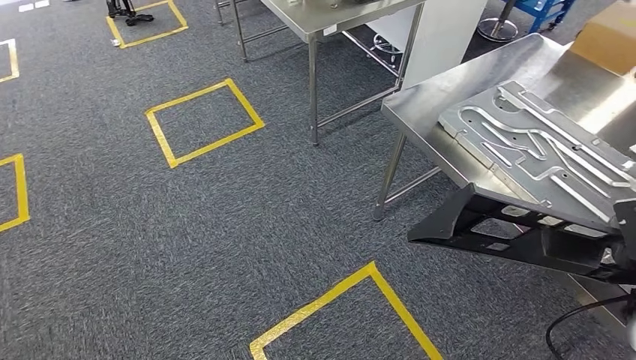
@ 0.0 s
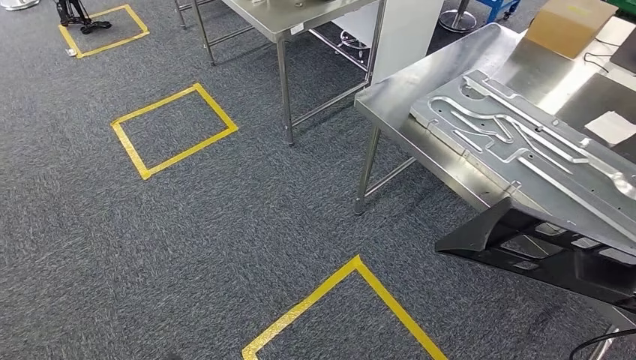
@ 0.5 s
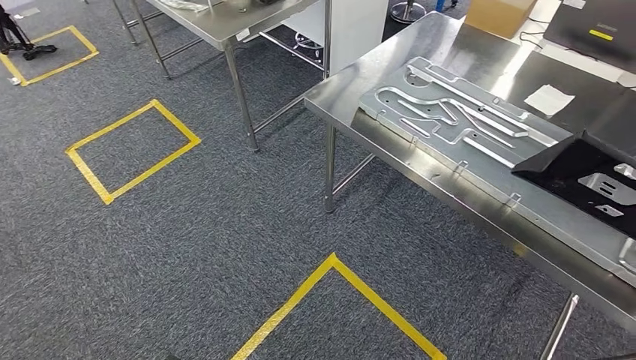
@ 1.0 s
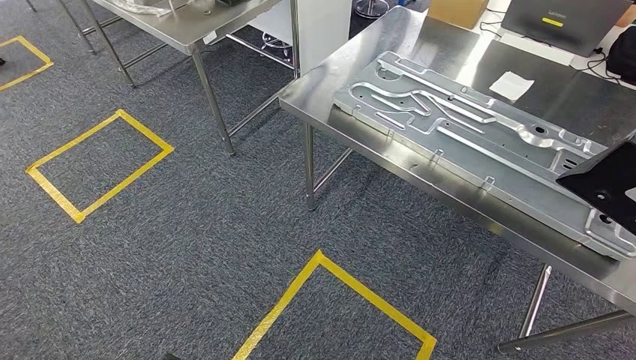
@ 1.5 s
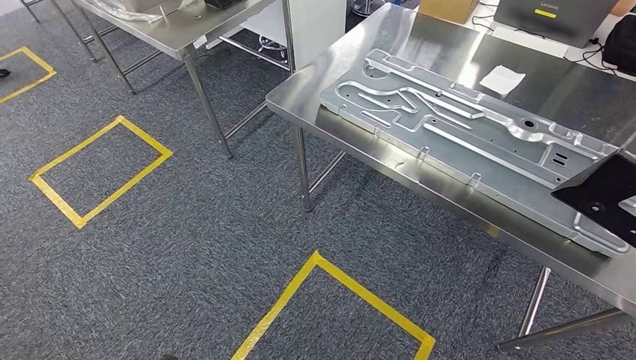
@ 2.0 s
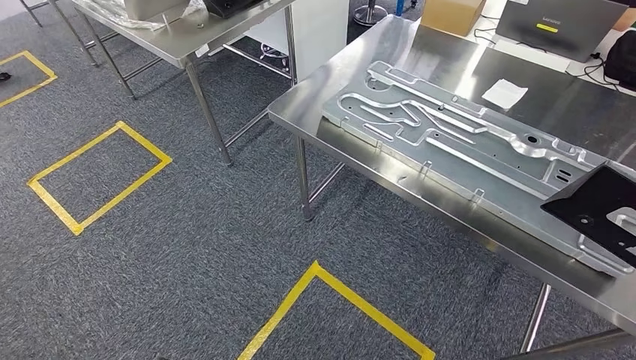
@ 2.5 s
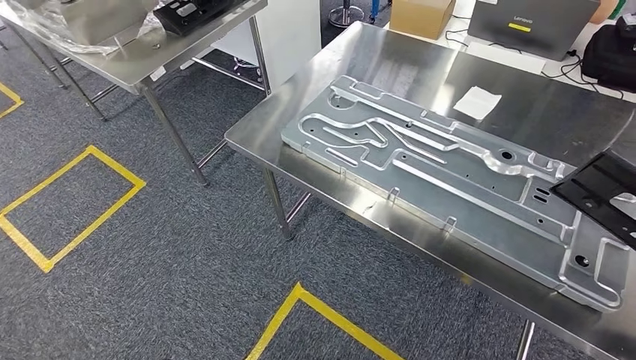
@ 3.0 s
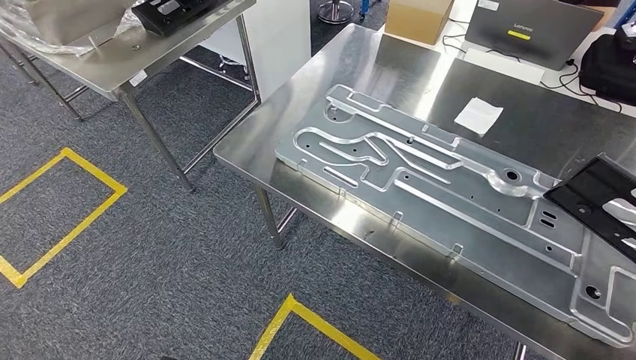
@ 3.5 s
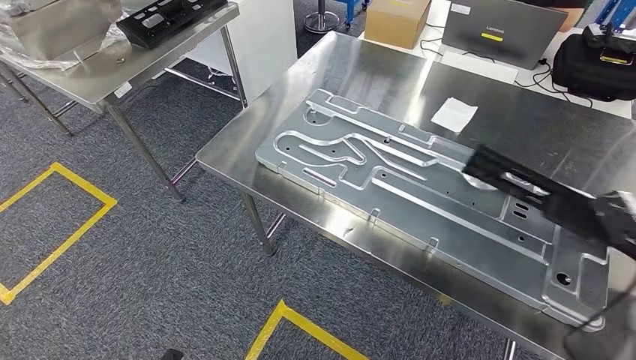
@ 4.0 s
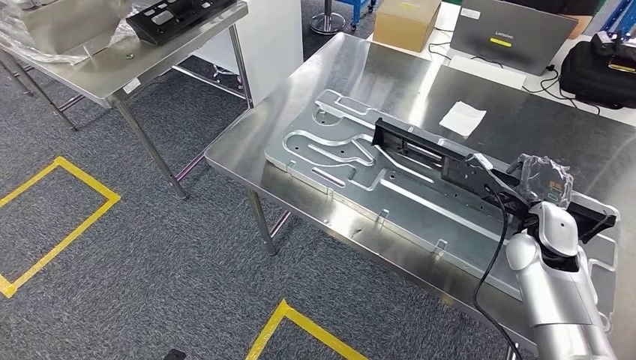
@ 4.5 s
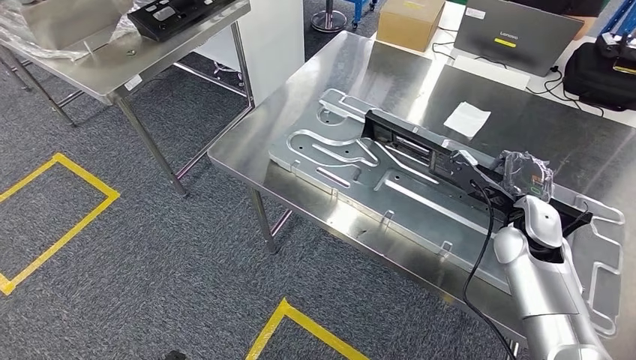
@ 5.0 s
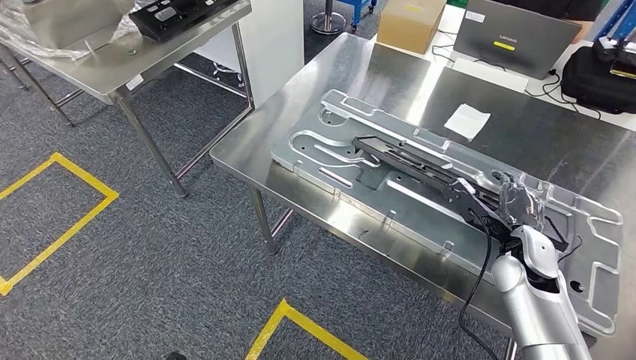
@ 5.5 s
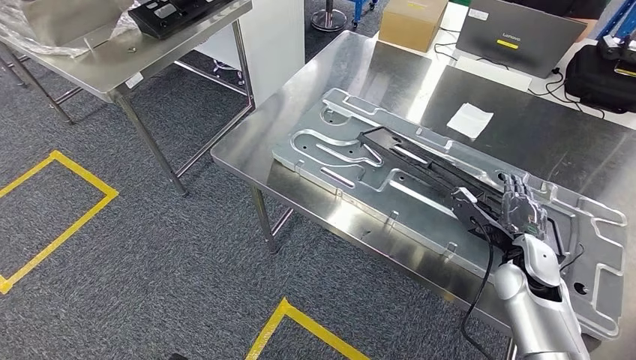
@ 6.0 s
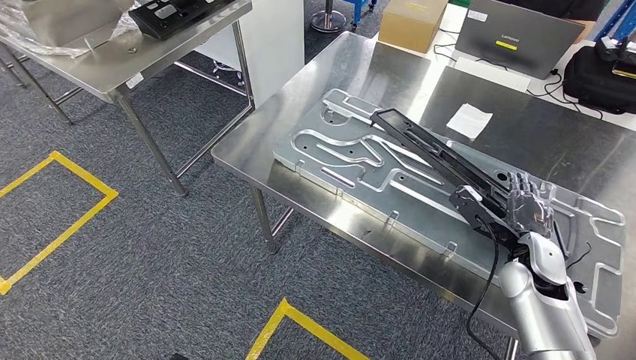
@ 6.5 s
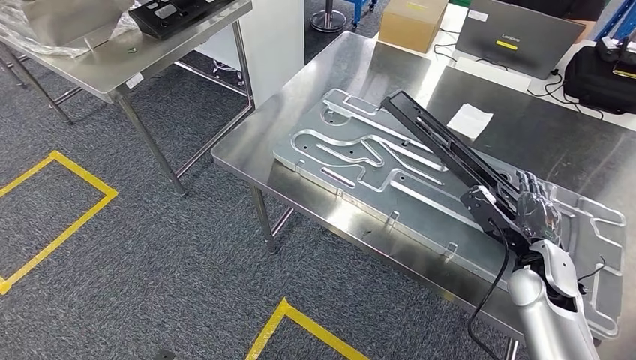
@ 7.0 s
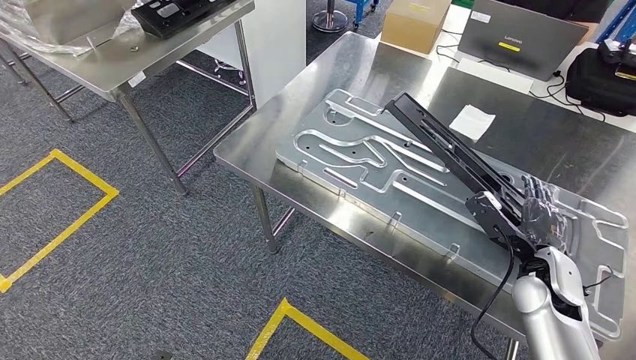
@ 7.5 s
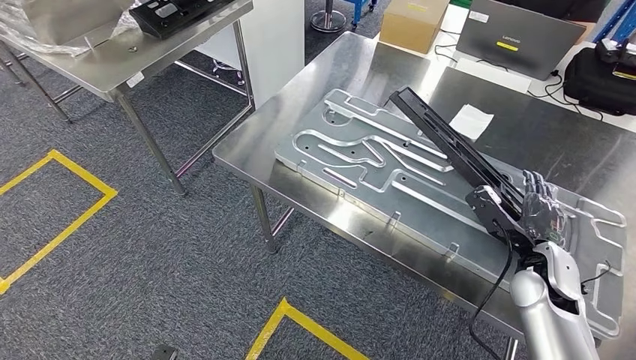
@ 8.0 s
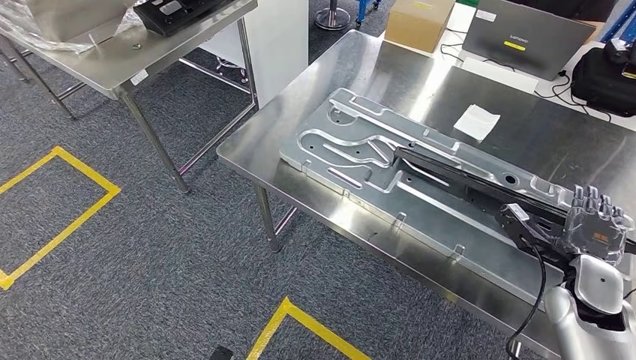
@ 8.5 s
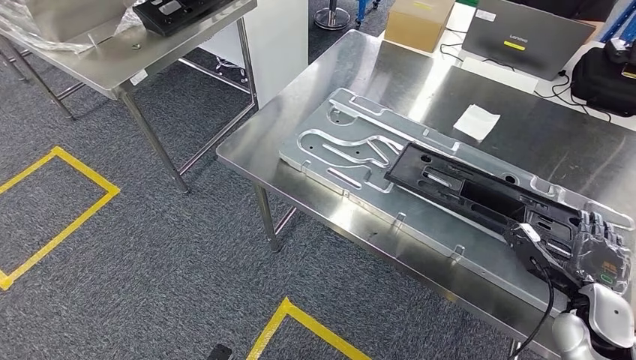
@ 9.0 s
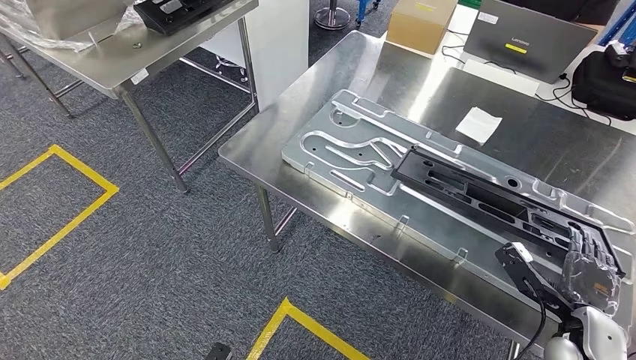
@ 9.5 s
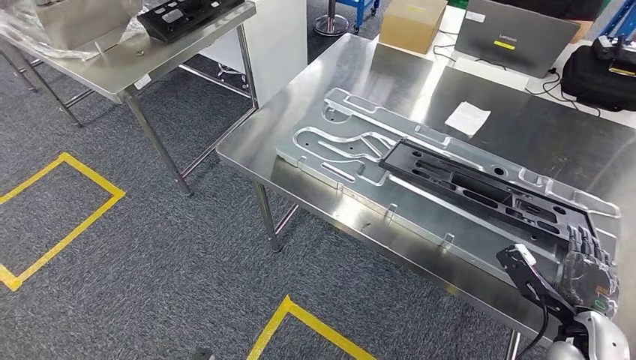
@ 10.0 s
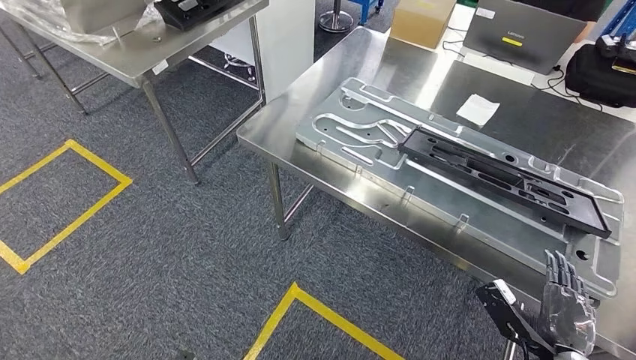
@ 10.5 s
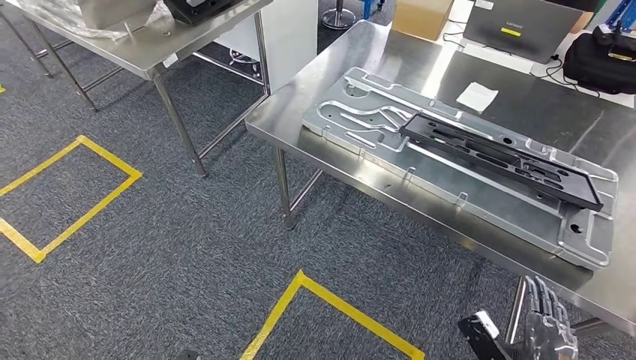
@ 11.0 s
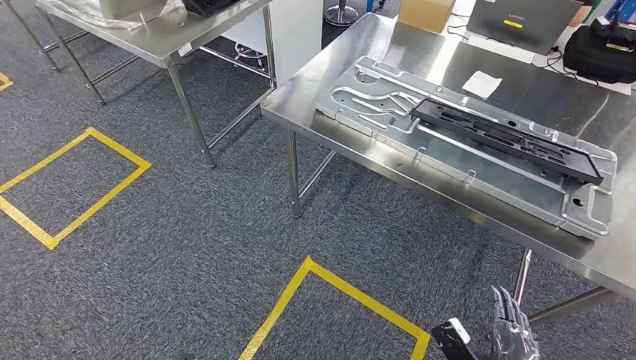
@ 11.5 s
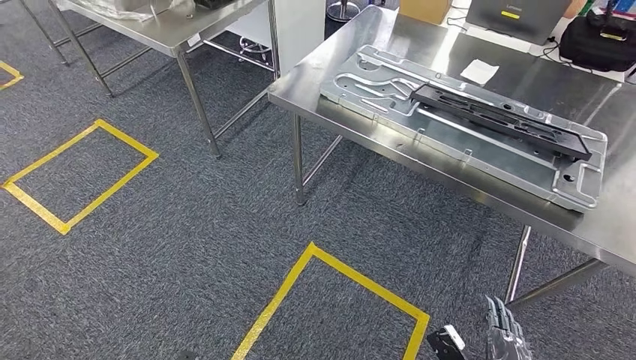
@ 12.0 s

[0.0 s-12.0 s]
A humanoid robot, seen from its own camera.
Step, 0.0 to 4.5 s: Move the large material to the workbench.
Step, 5.0 to 10.0 s: Insert the large material into the corresponding slot on the workbench.
6.0 to 8.0 s: The hands move only a little.

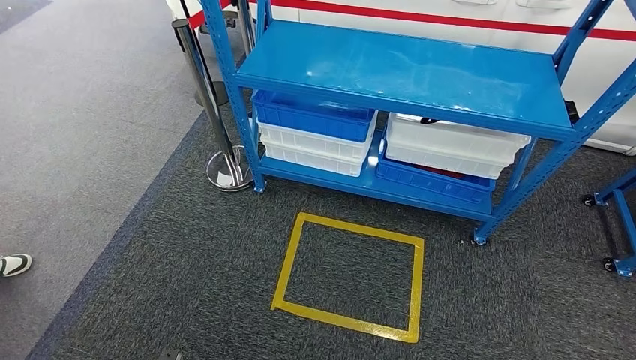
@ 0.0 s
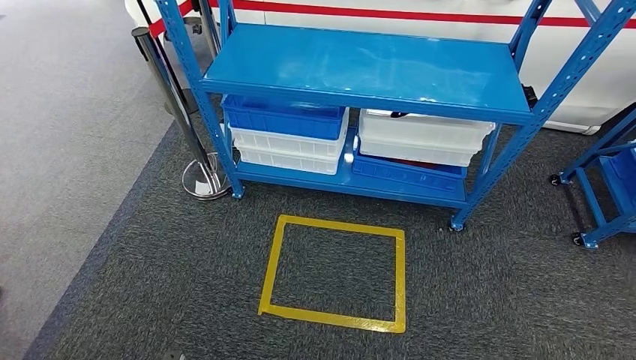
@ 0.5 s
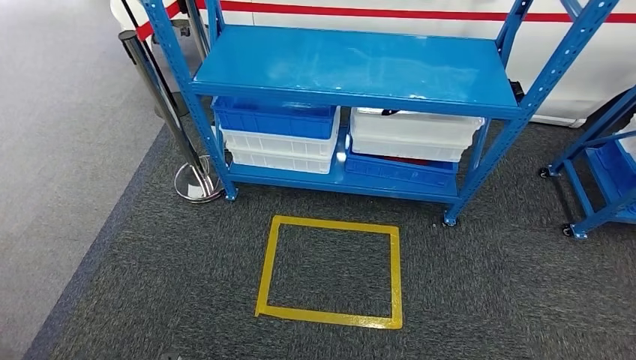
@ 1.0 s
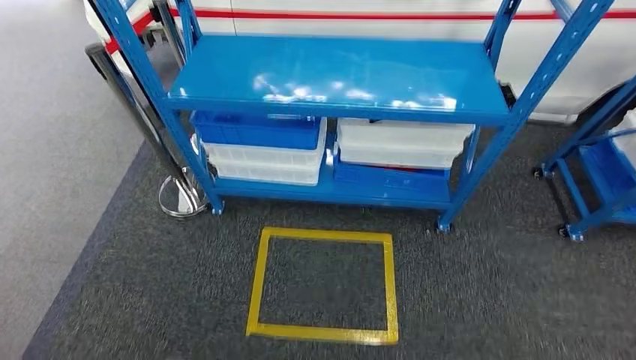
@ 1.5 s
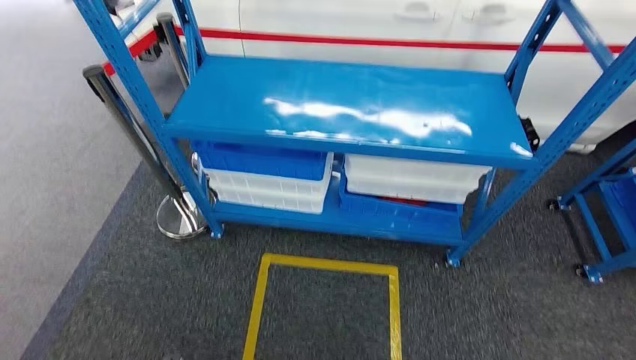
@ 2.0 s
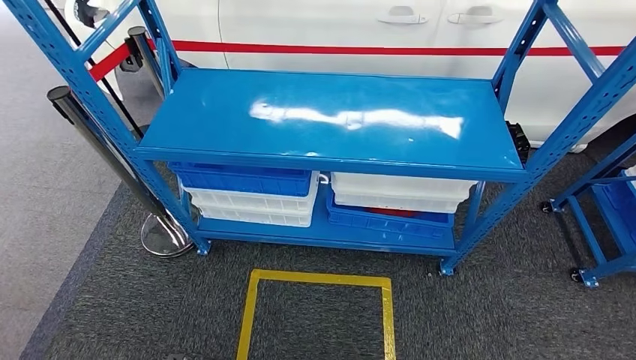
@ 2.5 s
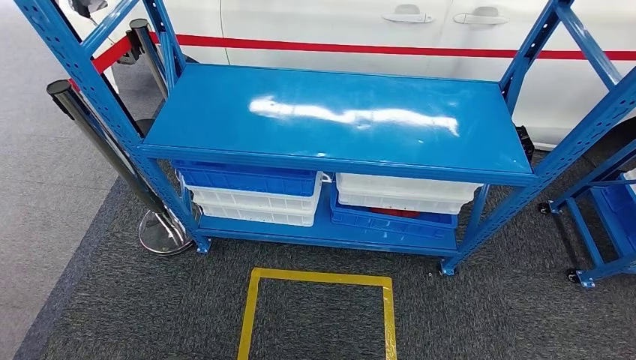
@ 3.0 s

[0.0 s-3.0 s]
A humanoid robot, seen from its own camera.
Step, 0.0 to 3.0 s: Return to the initial position at the shelf.
